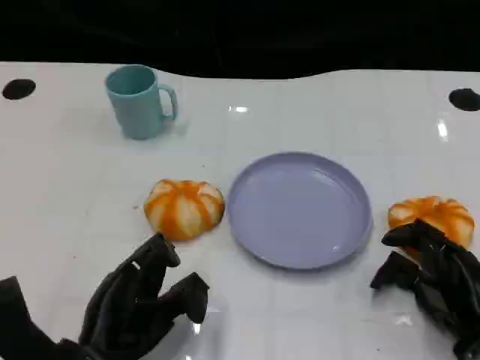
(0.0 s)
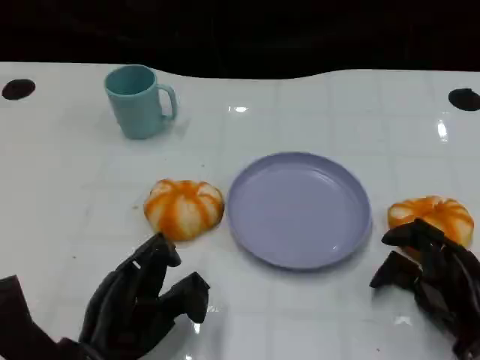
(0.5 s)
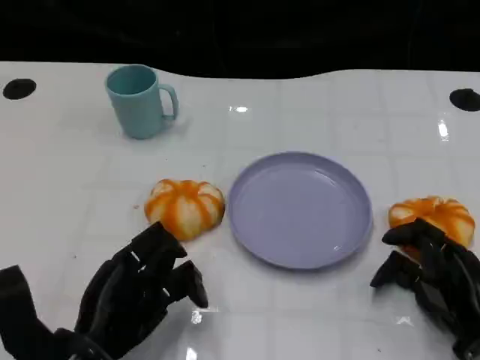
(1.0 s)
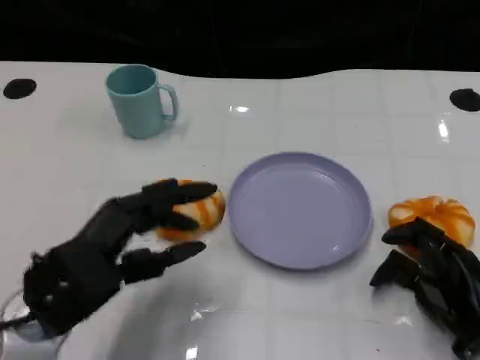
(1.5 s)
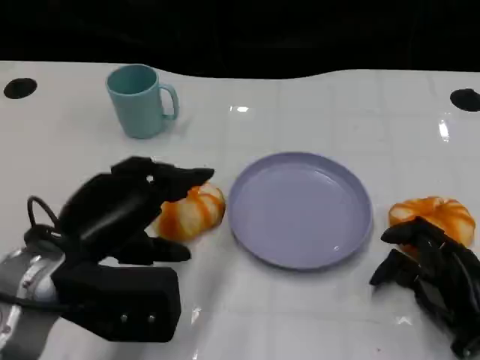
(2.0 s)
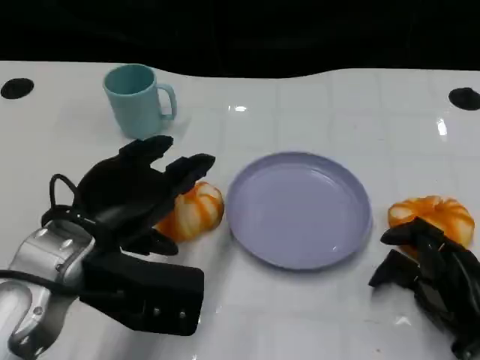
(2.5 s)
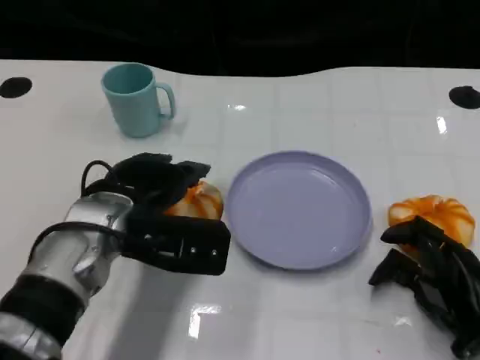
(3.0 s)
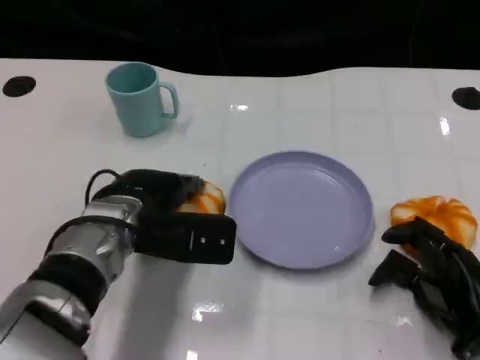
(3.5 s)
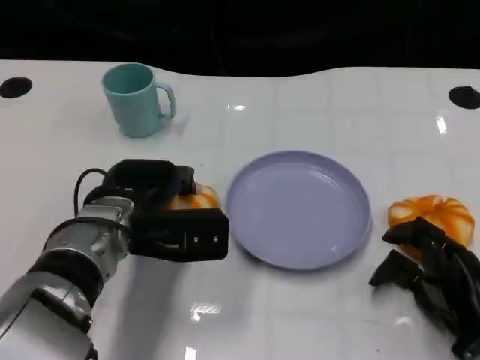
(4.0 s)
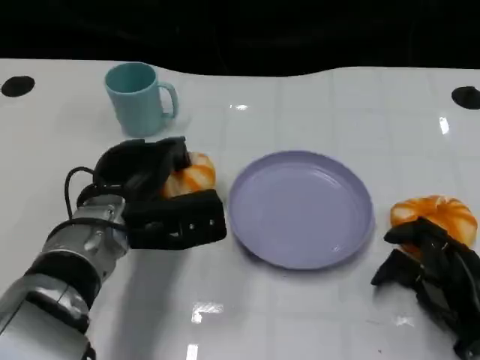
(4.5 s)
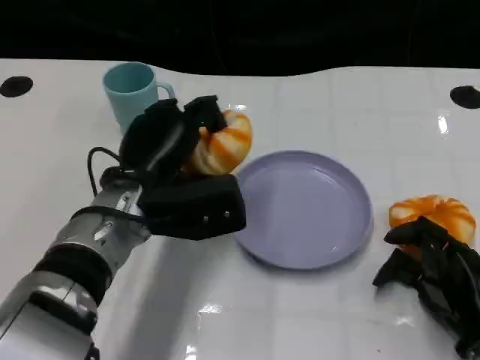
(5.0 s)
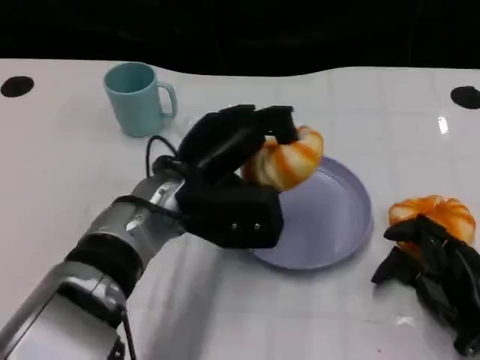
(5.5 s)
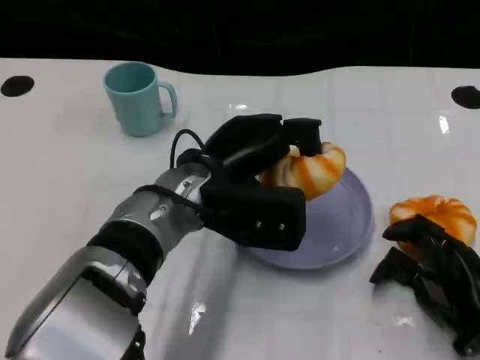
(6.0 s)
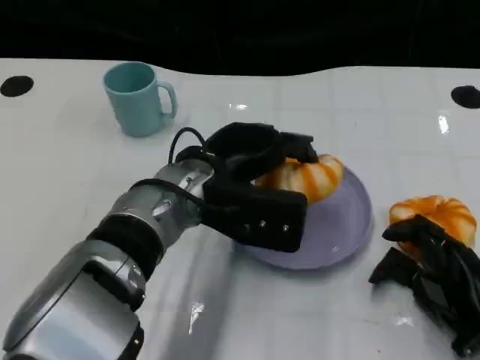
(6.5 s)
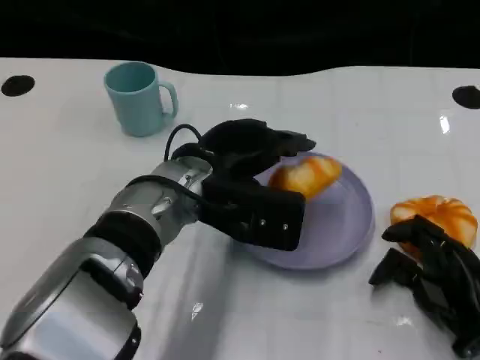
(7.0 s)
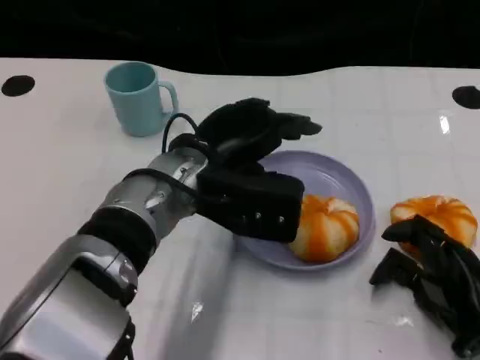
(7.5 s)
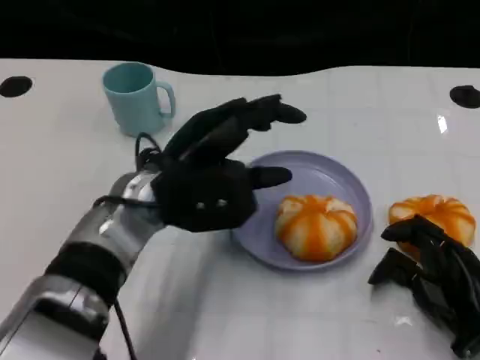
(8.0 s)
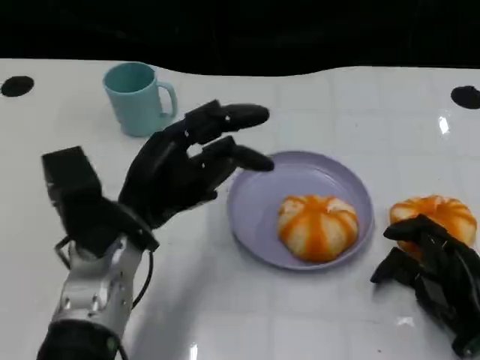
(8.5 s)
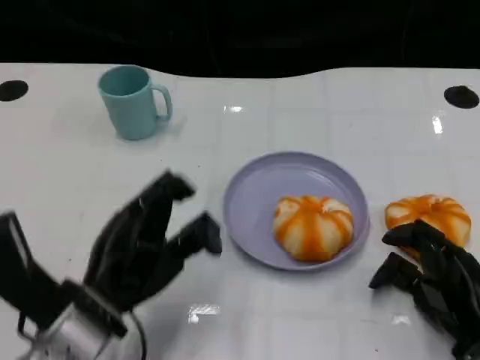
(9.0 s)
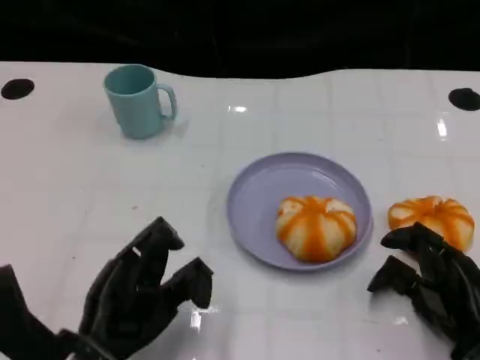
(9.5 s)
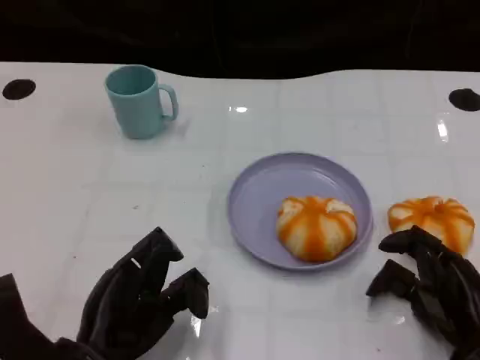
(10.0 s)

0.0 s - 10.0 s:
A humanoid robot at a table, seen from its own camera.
Task of the whole recording: Grasp the bread from the table and place it into the plate.
0.0 s - 2.0 s: The left hand goes some 10 cm upward and forward.
2.0 s - 4.0 s: The left hand shifts some 10 cm forward, downward and to the right.
4.0 s - 6.0 s: The left hand shifts approximately 10 cm to the right.
8.0 s - 10.0 s: The left hand shifts some 15 cm backward, downward and to the left.

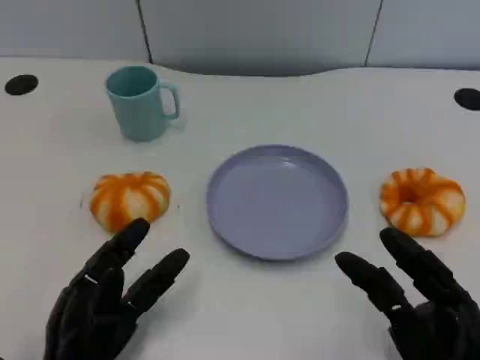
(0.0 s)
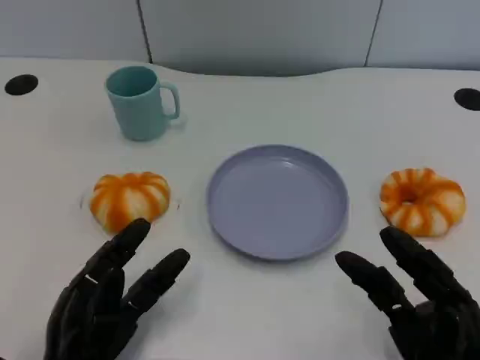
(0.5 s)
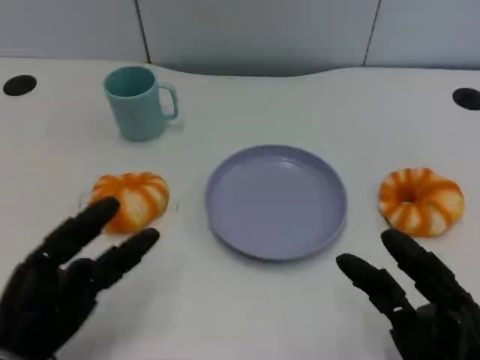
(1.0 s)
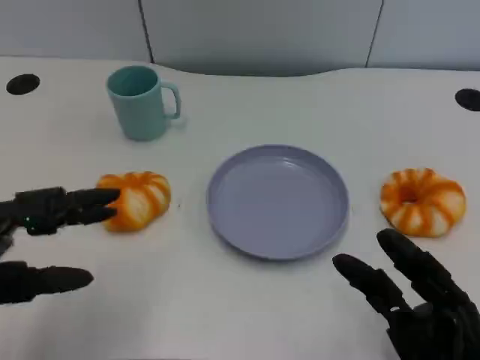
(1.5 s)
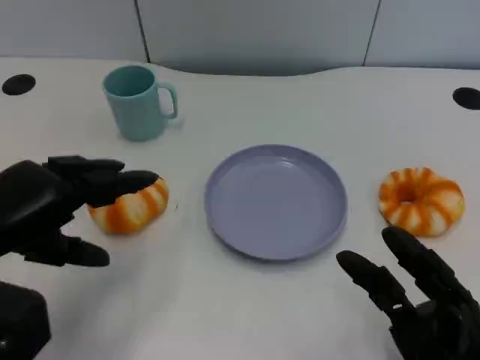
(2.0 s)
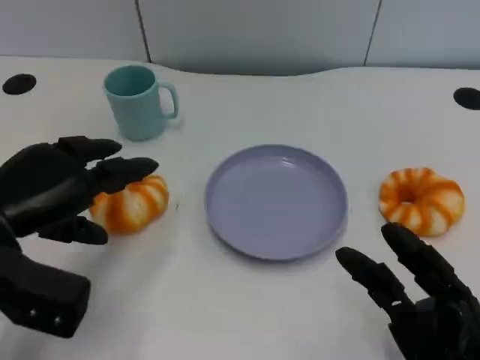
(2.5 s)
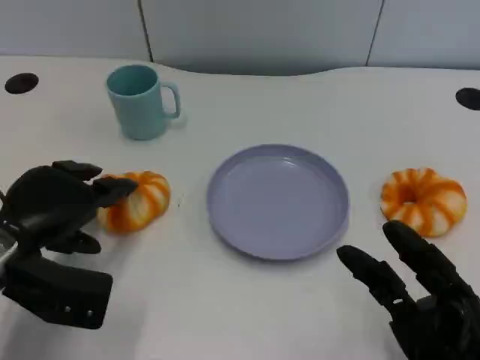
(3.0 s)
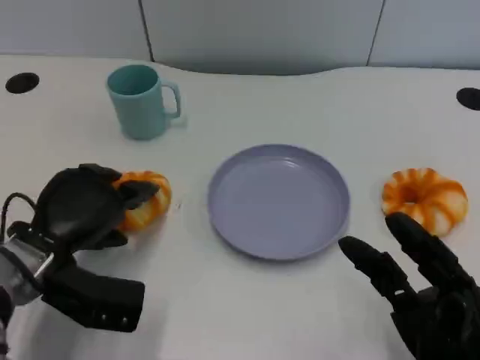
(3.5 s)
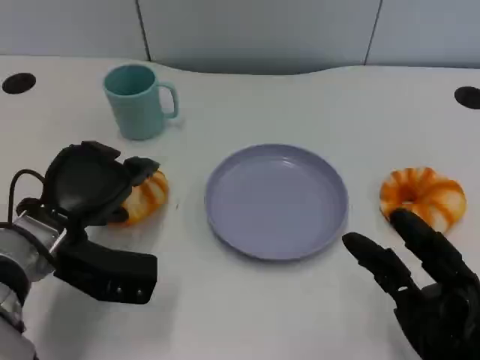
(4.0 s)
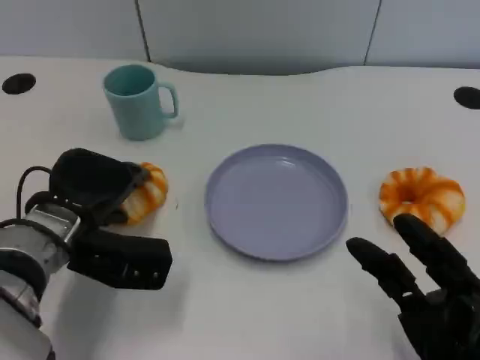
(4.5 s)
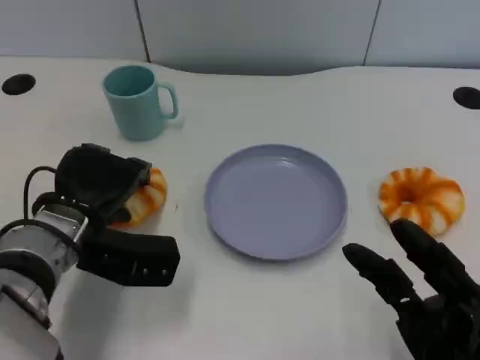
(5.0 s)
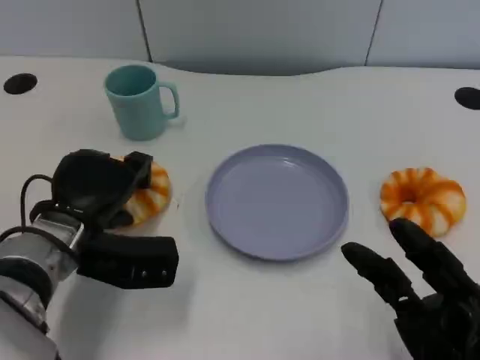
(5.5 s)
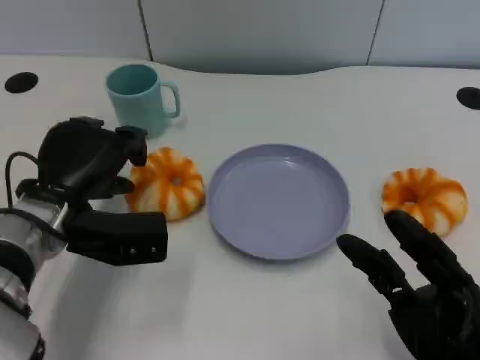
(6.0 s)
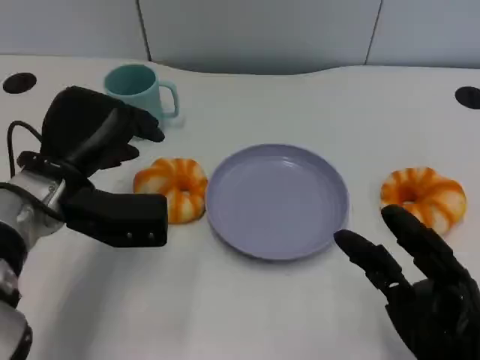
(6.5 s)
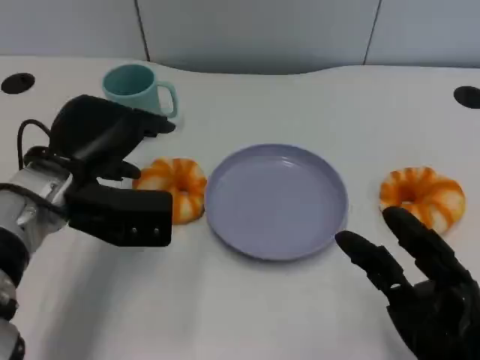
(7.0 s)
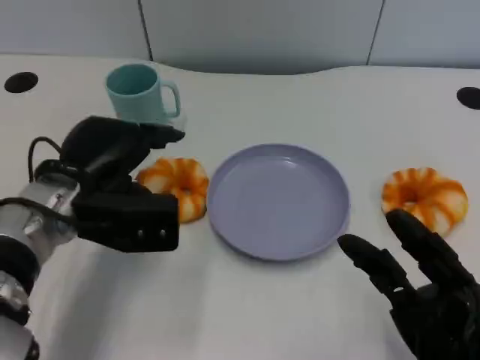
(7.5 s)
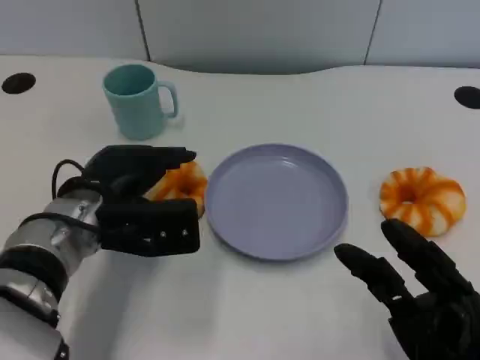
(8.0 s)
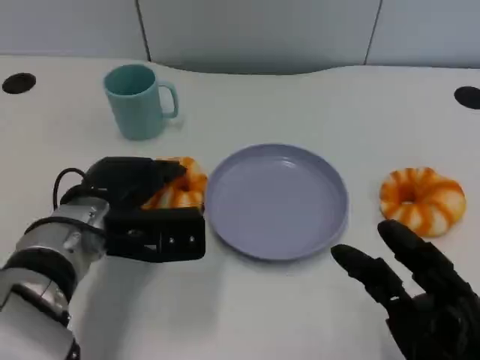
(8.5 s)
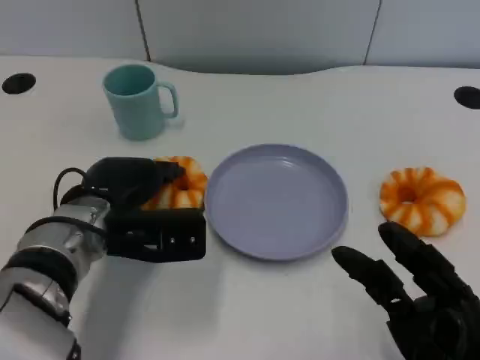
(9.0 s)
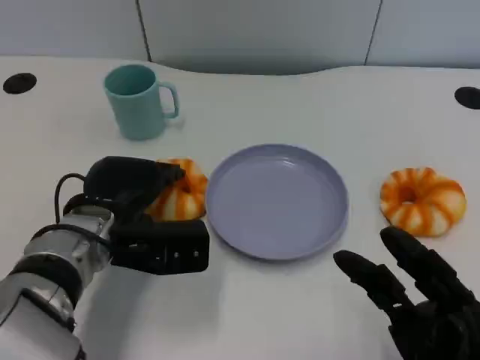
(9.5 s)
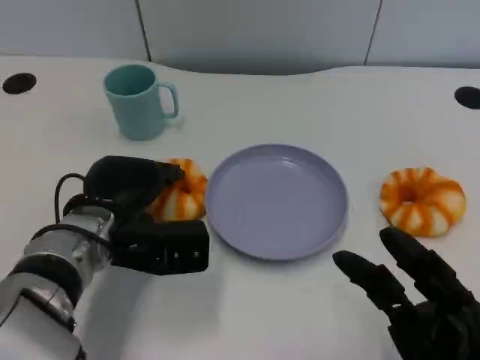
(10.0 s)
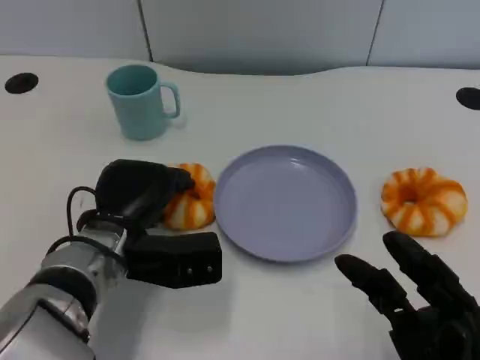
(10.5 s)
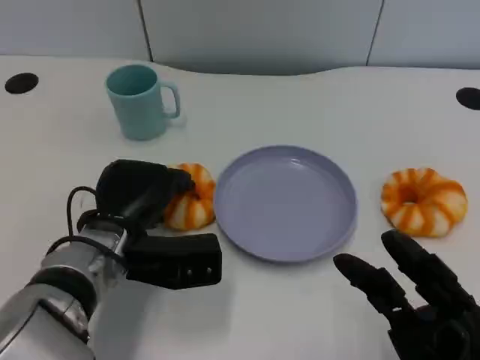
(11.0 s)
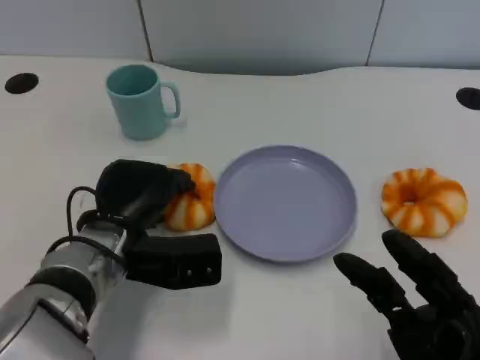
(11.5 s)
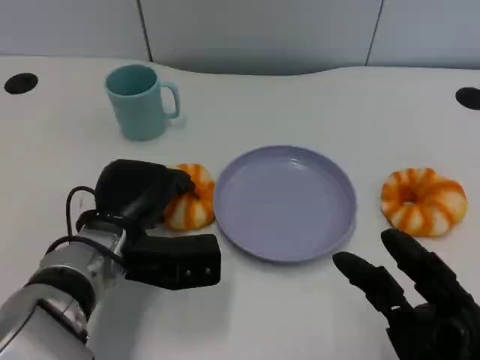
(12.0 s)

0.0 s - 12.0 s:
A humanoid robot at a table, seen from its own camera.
Task of the whole recording: Grasp the bread from the table and place it into the plate.
0.0 s - 2.0 s: The left hand is displaced upward, forward and to the left by about 20 cm.
2.0 s - 4.0 s: The left hand shifts roughly 10 cm downward, to the right and forward.
4.0 s - 6.0 s: The hands move only a little.
8.0 s - 12.0 s: There are only small adjustments of the hands.

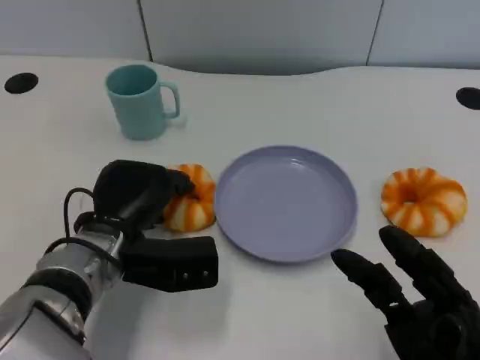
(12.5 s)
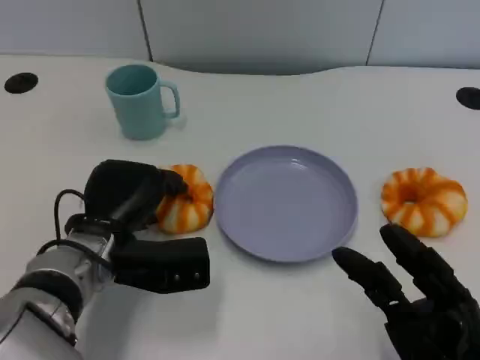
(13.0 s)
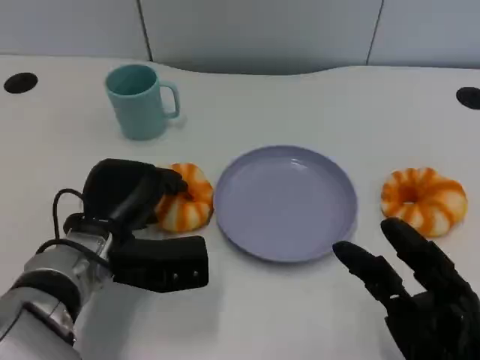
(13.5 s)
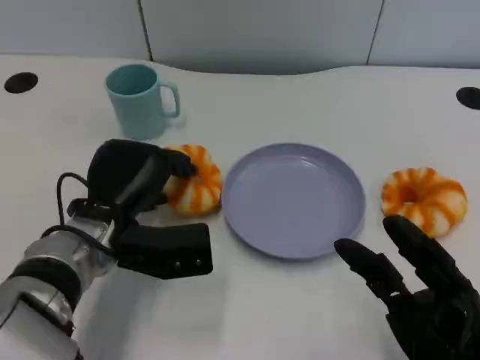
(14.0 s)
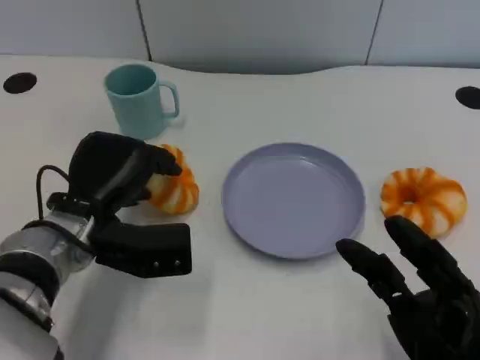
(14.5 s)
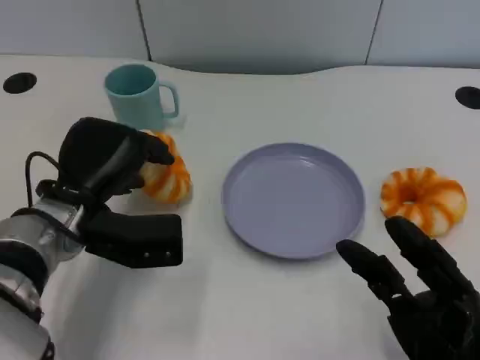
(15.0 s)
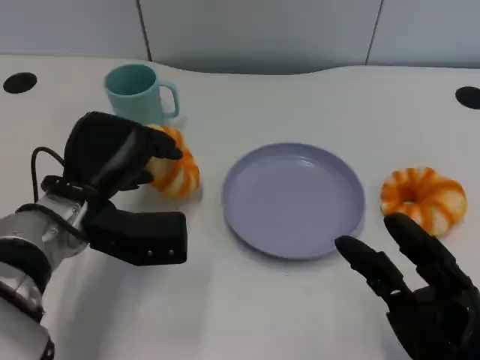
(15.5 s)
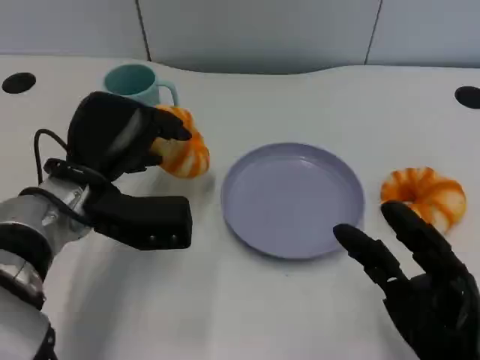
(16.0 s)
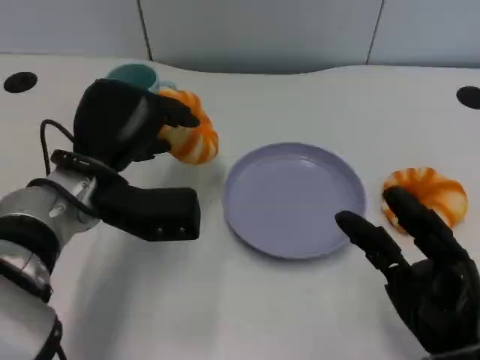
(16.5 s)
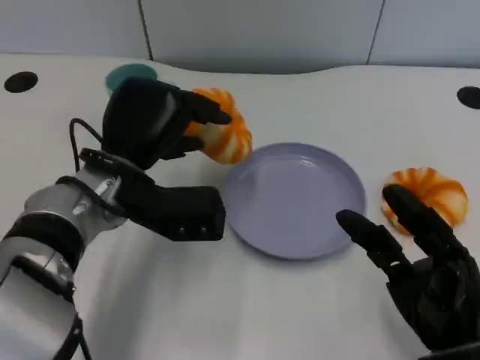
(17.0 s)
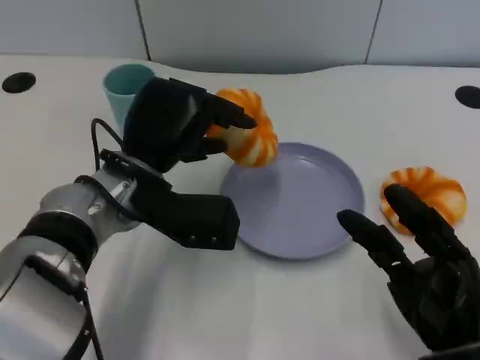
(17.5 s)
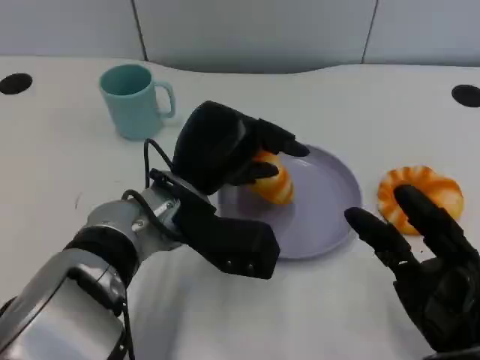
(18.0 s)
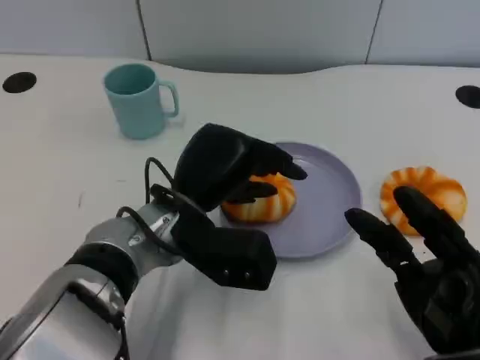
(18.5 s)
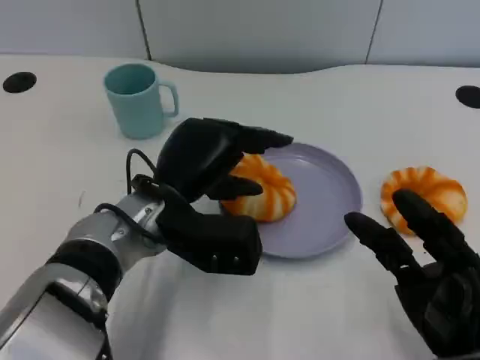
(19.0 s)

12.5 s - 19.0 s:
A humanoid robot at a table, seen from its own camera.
Task of the whole recording: Grasp the bread from the table and place it into the plate.
14.5 s - 17.0 s: The left hand shifts by roughly 5 cm.
